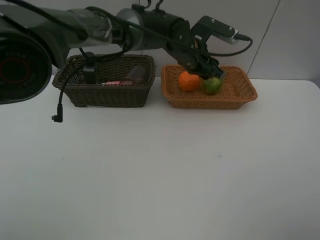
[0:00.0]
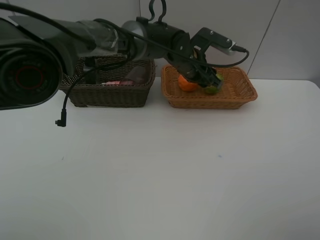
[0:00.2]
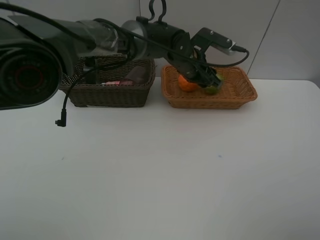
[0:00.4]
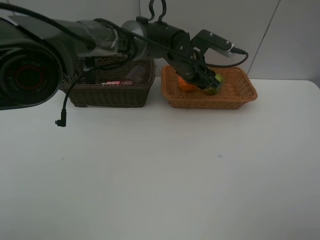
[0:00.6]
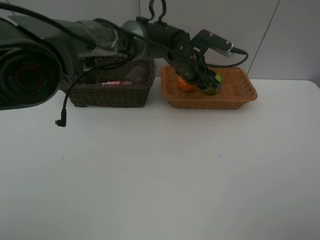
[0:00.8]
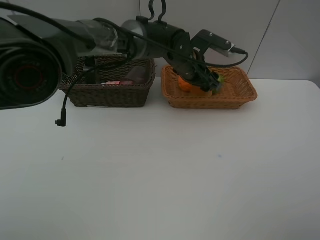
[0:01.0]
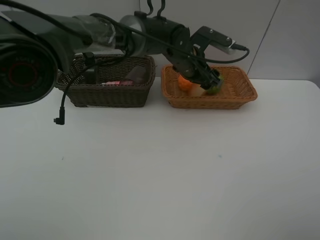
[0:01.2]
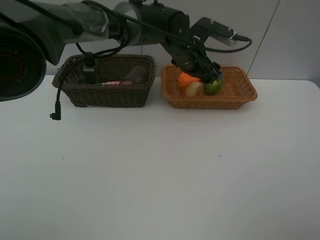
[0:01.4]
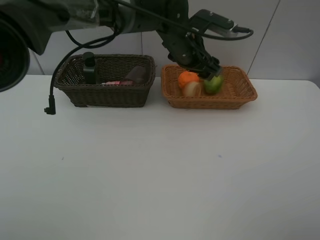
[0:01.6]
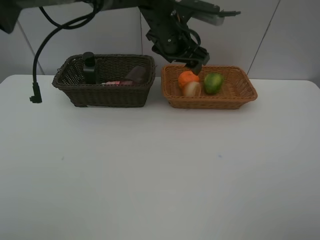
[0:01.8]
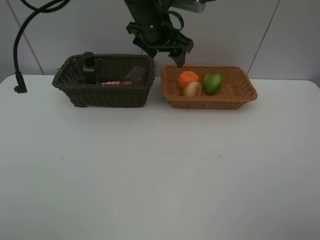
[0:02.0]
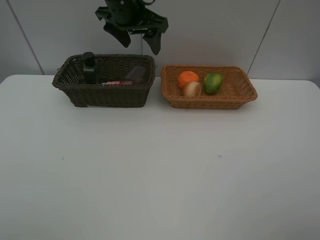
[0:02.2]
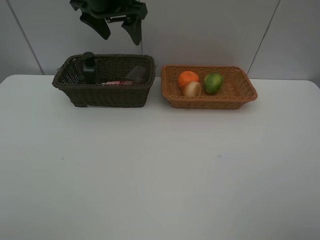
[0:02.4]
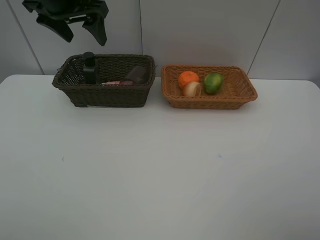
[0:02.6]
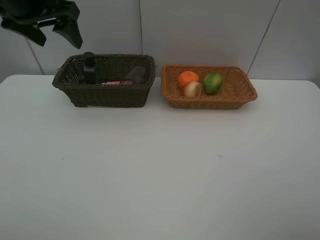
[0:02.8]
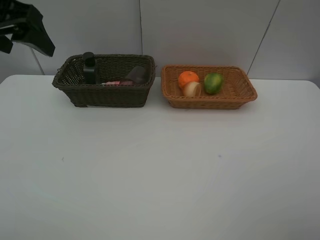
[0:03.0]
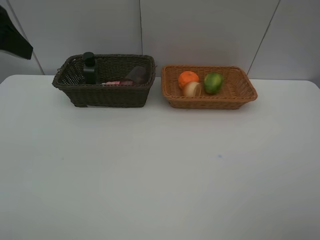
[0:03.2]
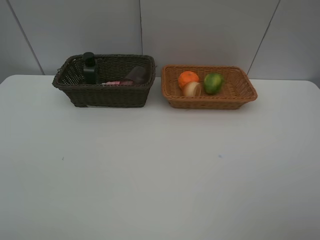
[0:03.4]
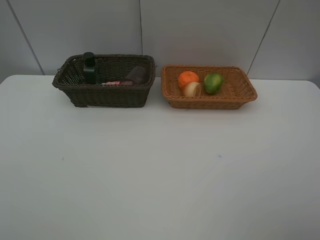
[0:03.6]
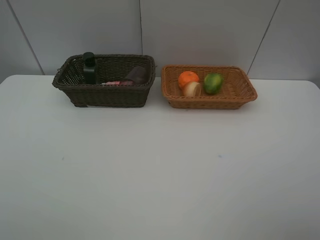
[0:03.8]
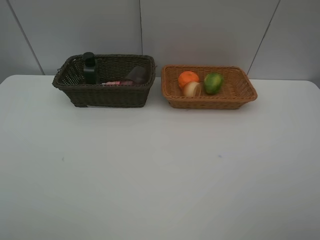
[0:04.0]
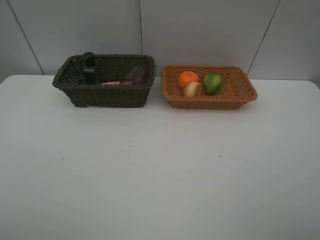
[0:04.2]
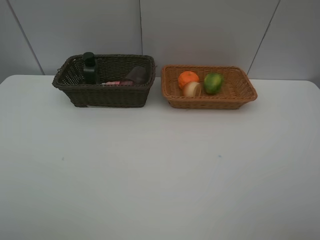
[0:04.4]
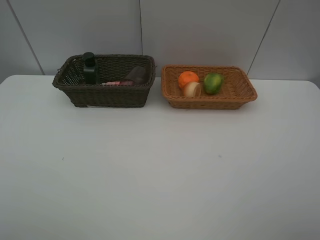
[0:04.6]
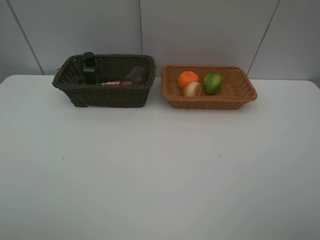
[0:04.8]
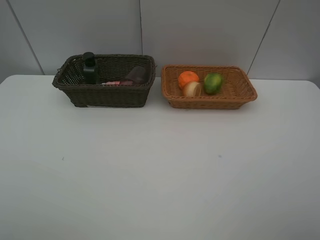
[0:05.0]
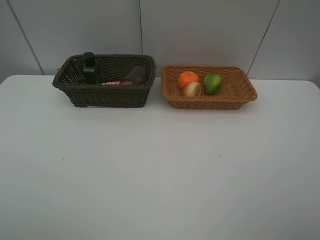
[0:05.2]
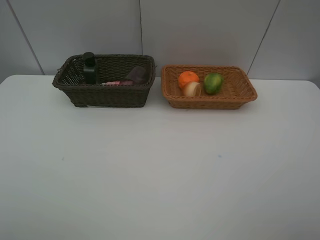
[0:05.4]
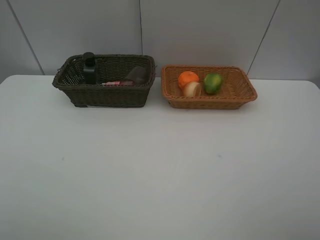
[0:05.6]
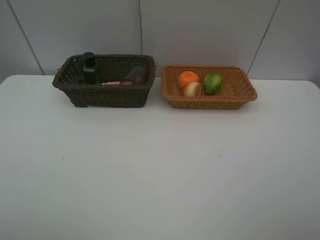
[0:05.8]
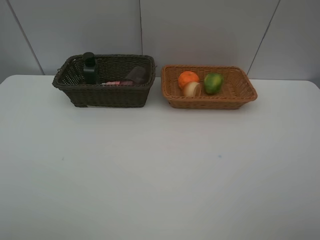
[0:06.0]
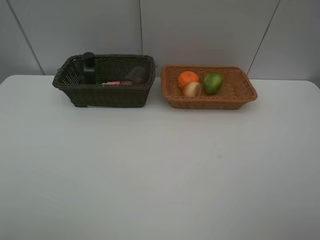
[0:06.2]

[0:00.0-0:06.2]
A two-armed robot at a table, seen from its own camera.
Task of the whole recording: place multiple objects separately in different baskets.
0.0 to 1.6 s: The grippers move only a little.
1.6 to 3.2 s: The left gripper is displaced to the left, backward and upward by roughly 40 cm.
3.2 to 4.6 s: The left gripper moves backward, approximately 20 cm.

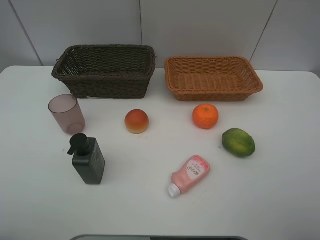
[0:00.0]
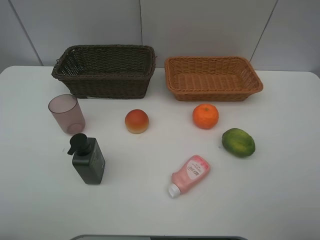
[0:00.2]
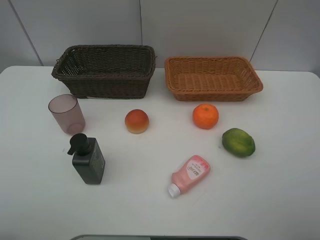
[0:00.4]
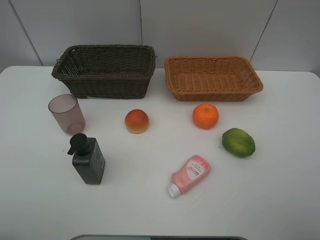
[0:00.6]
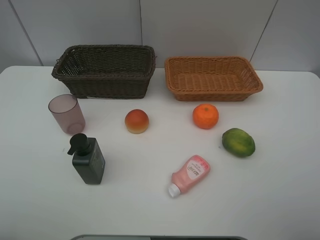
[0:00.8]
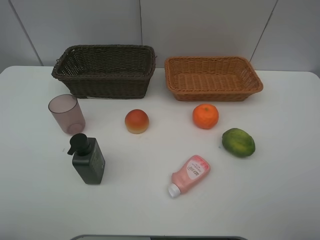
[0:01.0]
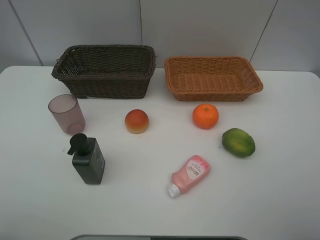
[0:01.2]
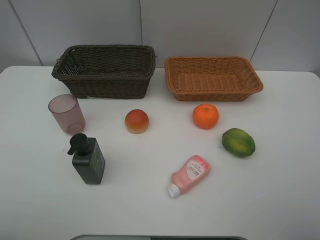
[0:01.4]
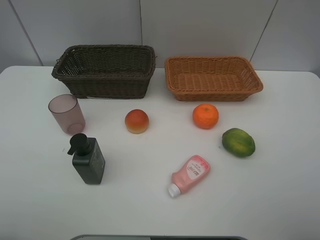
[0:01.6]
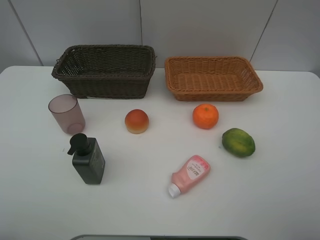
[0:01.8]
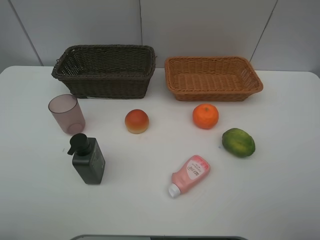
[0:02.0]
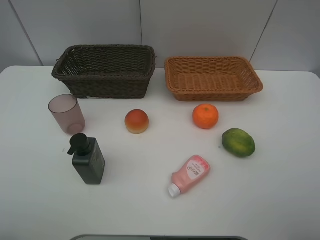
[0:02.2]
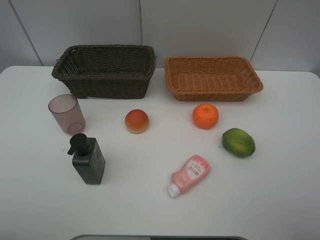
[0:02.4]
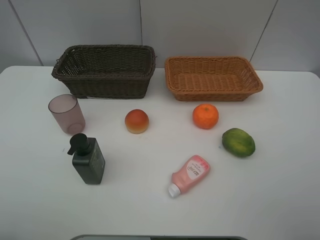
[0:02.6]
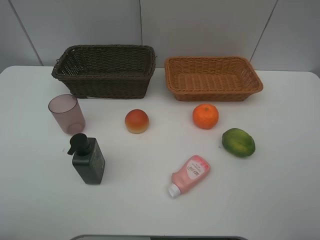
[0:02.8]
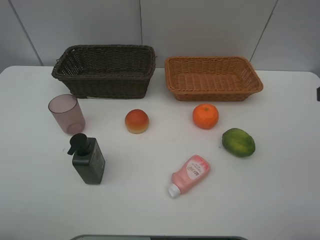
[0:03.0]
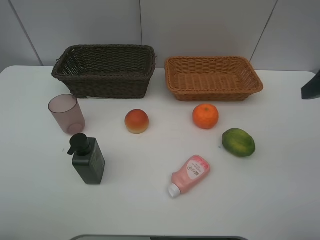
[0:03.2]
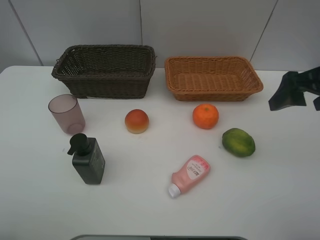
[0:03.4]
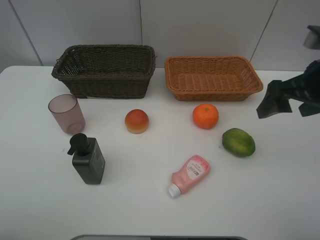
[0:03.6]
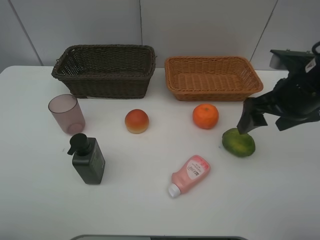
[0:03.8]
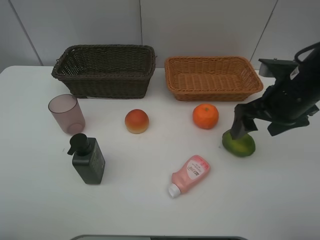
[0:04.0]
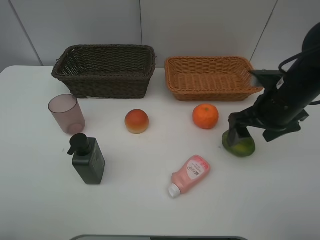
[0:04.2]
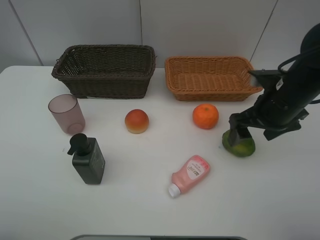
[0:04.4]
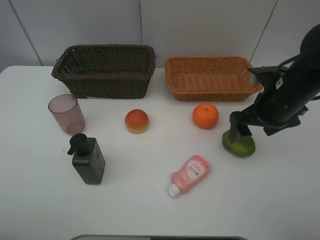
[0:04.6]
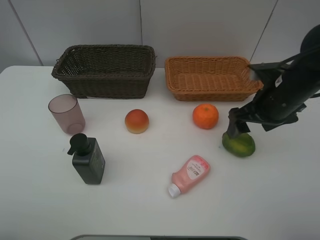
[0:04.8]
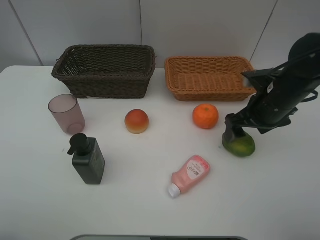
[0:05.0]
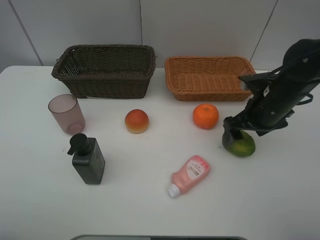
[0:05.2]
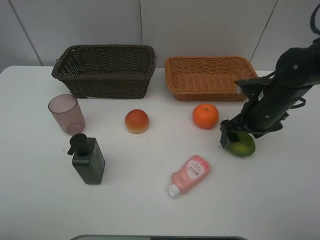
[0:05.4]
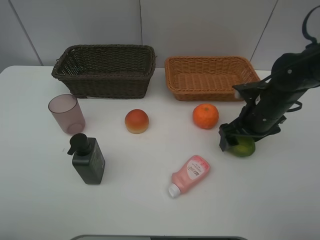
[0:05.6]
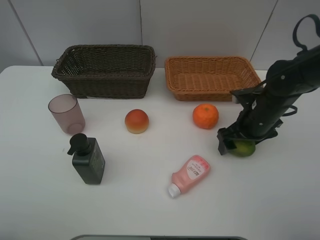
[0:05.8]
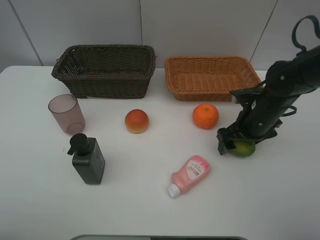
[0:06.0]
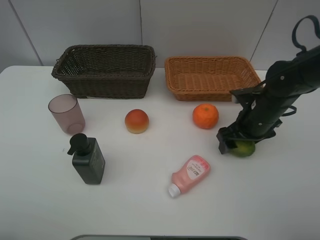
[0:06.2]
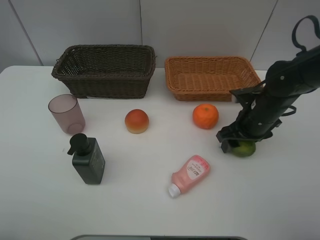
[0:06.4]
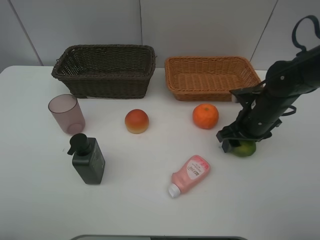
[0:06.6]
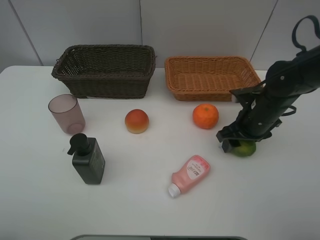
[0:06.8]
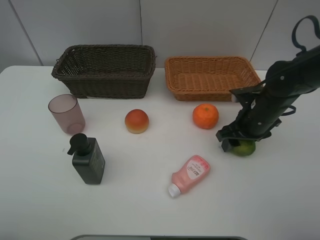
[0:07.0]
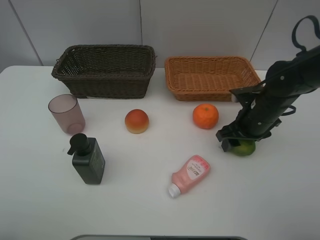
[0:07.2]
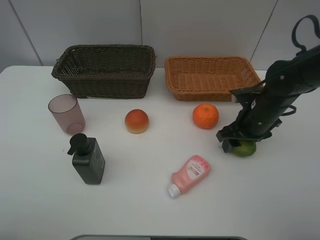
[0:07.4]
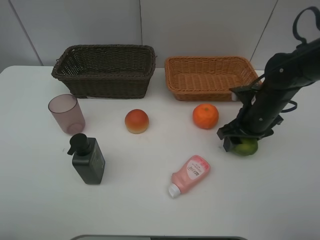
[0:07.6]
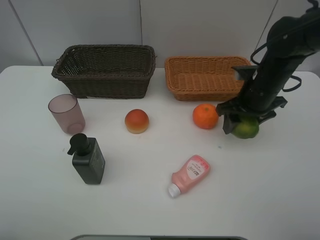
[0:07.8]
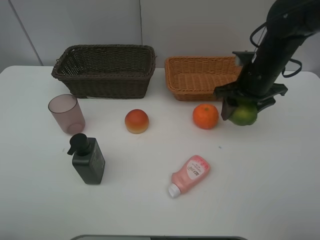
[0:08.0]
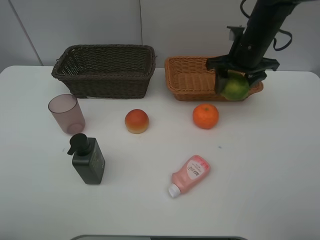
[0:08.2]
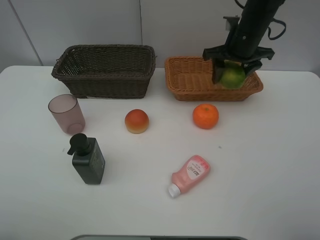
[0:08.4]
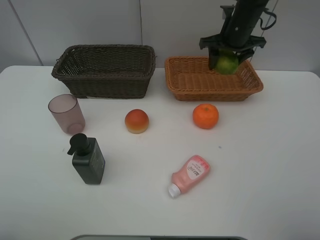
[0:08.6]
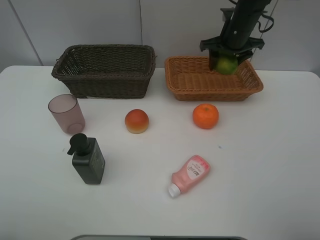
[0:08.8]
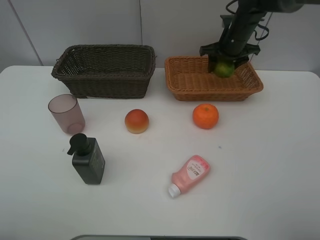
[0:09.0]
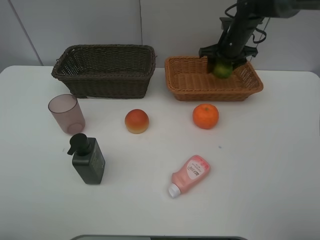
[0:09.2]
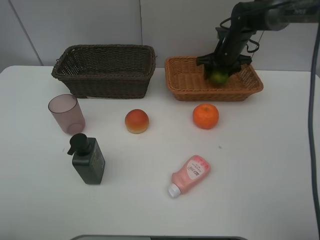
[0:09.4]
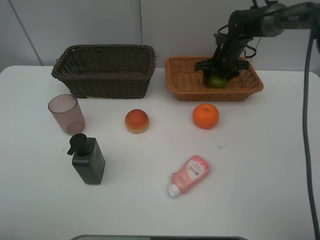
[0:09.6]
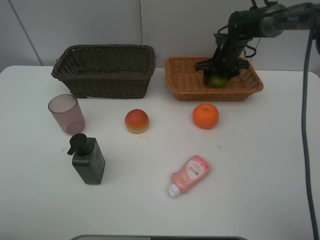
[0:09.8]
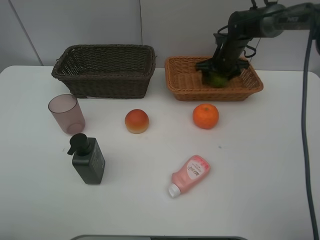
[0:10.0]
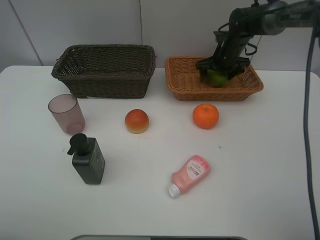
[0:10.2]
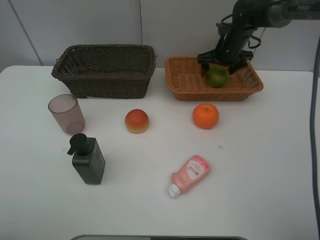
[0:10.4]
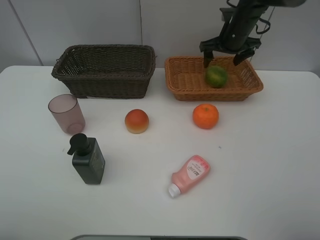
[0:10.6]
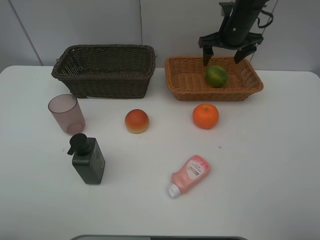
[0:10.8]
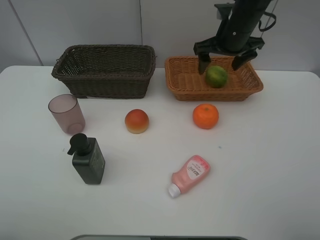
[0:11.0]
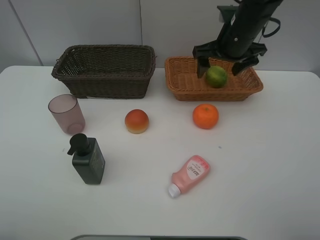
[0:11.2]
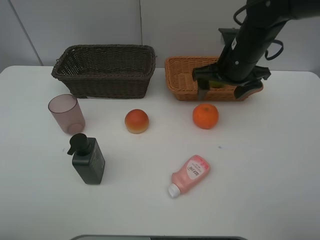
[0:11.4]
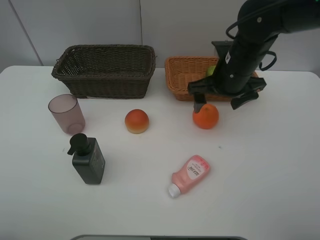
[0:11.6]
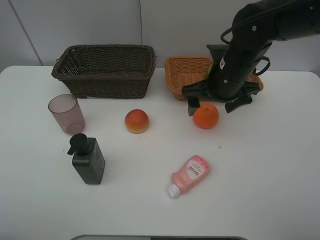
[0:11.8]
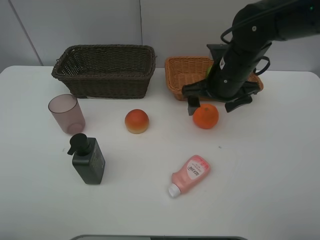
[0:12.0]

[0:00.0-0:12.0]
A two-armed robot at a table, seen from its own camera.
Task of the whole recording: place multiple objects separately in different baskets.
0.0 to 1.6 s: Both grippers stay about where they are.
3.0 to 4.4 s: The right gripper moves downward, forward and to the left, about 20 cm.
4.4 to 6.0 s: The right gripper is displaced downward by roughly 5 cm.
6.0 to 7.6 s: The right gripper closes.
7.6 to 9.0 s: The right gripper is displaced forward by some 20 cm.
9.0 to 10.4 s: The right gripper opens up.
10.4 to 12.0 s: The right gripper shifts approximately 20 cm backward.

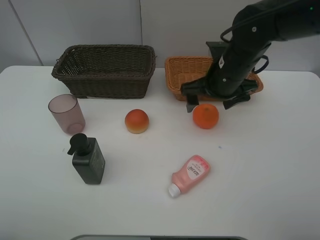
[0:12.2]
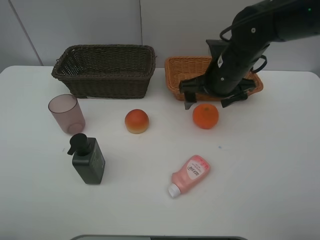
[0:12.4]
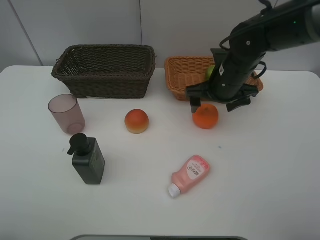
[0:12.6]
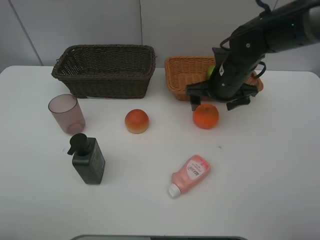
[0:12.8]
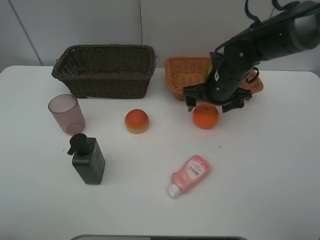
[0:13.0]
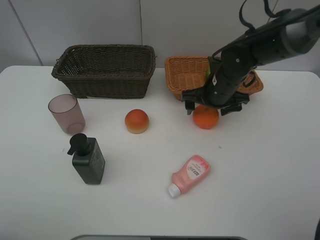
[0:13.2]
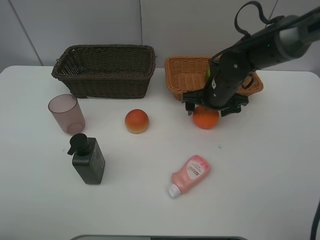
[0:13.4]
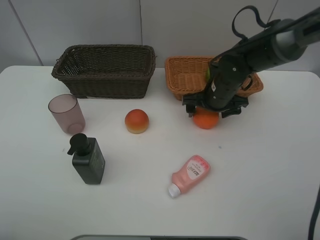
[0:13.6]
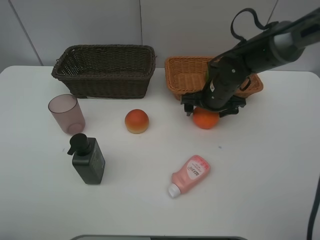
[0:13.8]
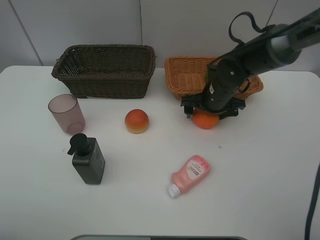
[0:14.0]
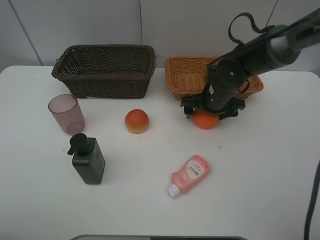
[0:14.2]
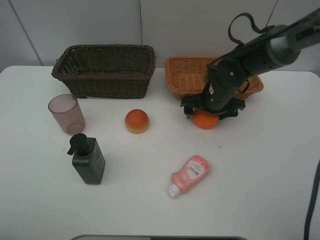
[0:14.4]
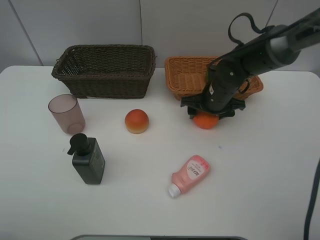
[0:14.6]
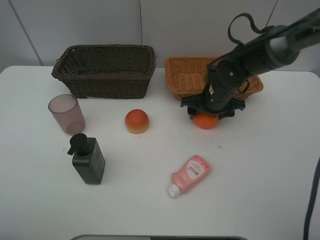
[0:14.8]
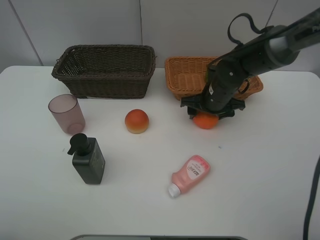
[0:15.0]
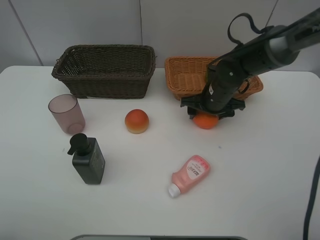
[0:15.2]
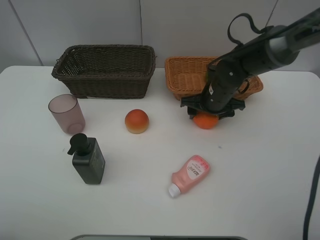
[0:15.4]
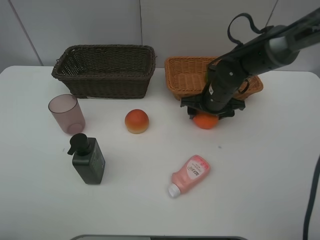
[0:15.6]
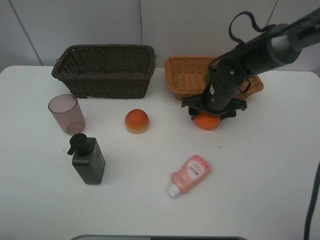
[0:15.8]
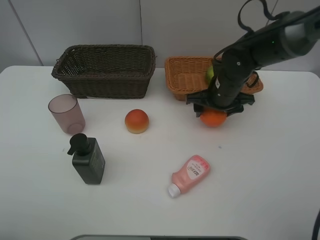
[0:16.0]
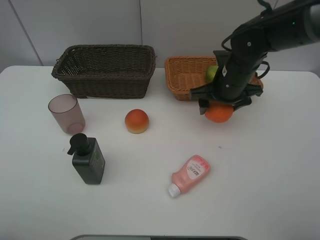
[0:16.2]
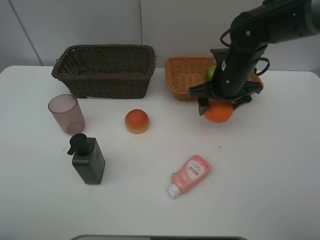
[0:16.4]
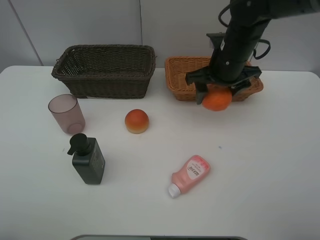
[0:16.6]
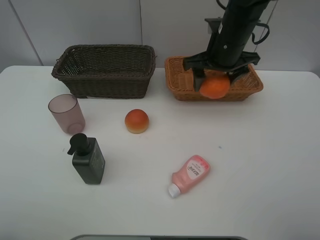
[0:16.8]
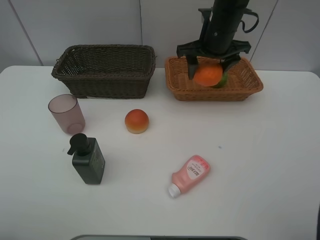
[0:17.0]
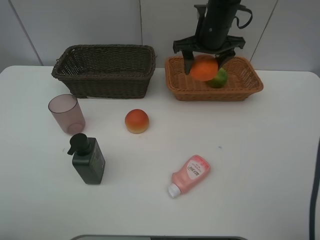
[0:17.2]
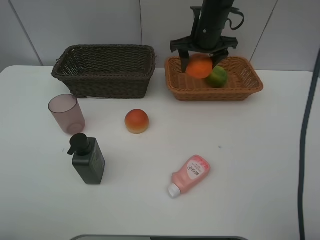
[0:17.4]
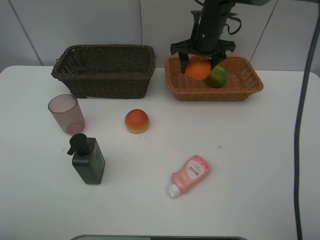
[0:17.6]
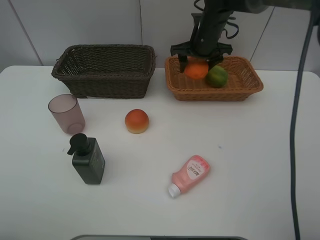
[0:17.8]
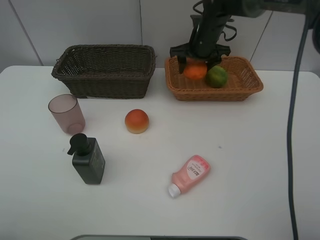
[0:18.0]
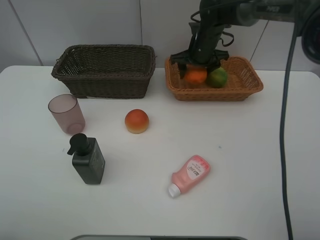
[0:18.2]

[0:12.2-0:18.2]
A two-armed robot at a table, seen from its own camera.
Task of the whole recording: place multiple objects separately in different baskets.
12.2 to 13.8 s: The right gripper goes approximately 10 cm downward.
13.8 to 15.2 s: The right gripper closes up.
15.2 to 16.6 s: The right gripper is displaced upward by some 10 cm.
16.6 to 18.2 s: The right gripper shifts approximately 15 cm forward.
